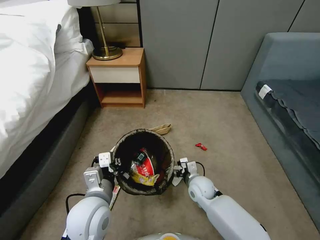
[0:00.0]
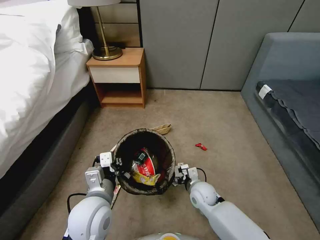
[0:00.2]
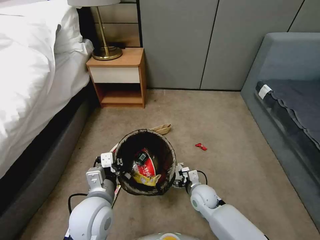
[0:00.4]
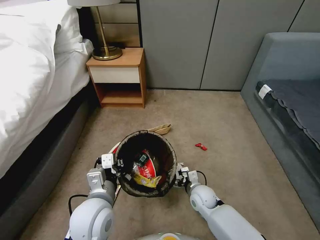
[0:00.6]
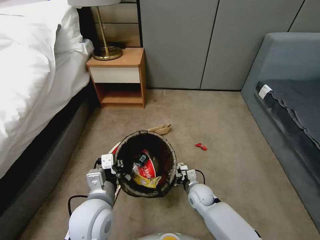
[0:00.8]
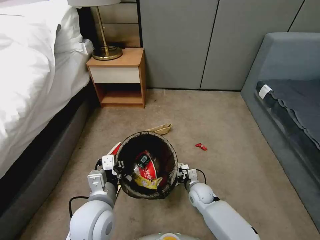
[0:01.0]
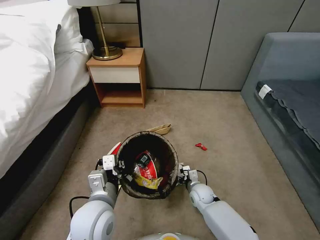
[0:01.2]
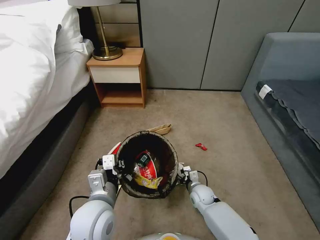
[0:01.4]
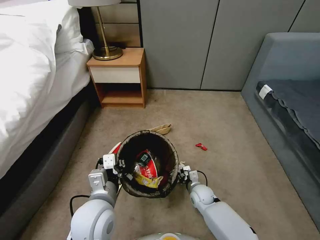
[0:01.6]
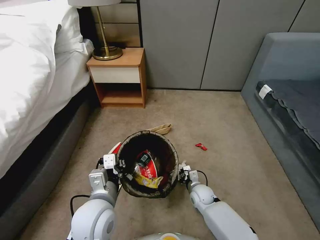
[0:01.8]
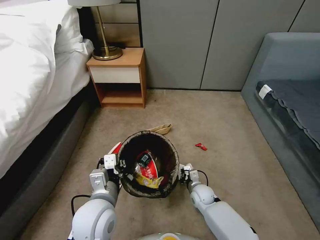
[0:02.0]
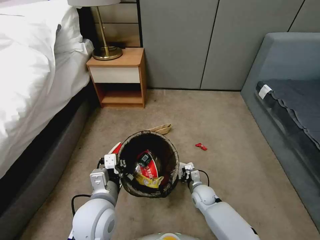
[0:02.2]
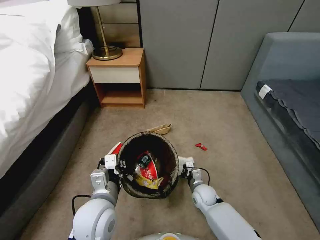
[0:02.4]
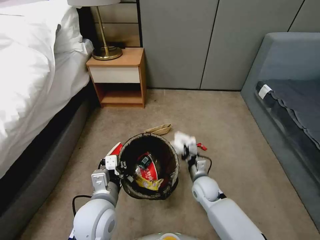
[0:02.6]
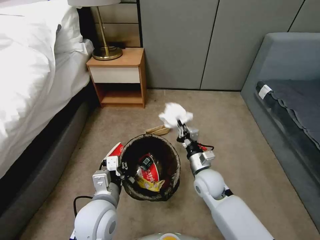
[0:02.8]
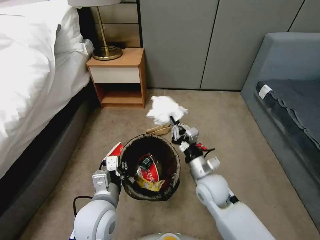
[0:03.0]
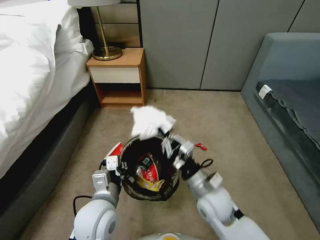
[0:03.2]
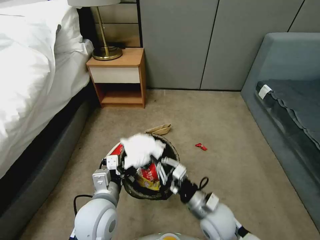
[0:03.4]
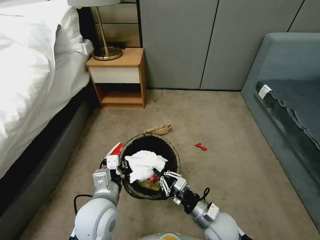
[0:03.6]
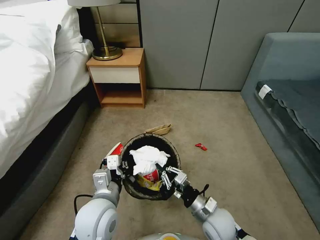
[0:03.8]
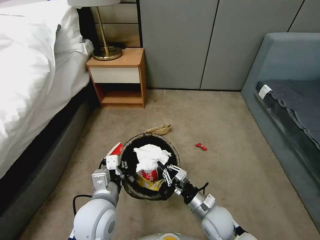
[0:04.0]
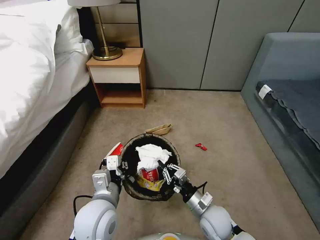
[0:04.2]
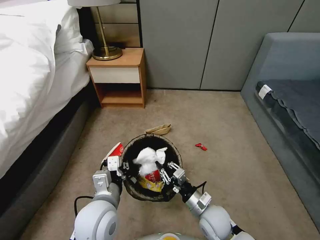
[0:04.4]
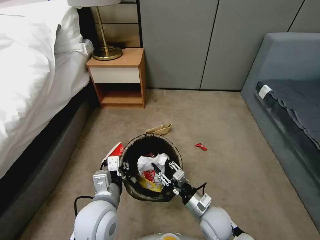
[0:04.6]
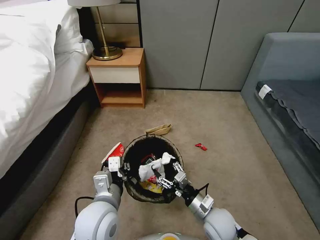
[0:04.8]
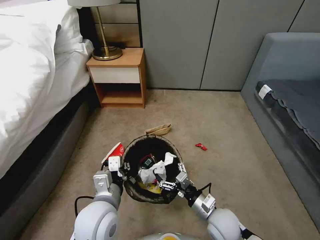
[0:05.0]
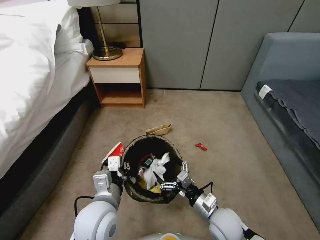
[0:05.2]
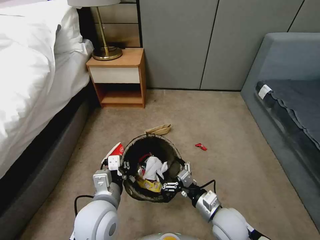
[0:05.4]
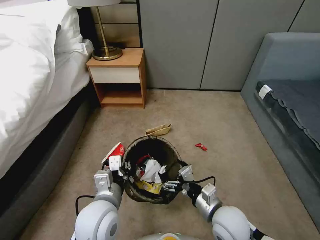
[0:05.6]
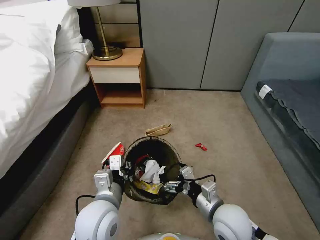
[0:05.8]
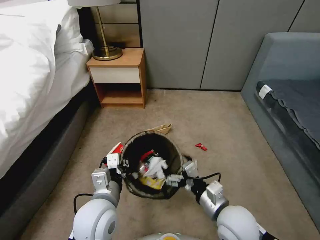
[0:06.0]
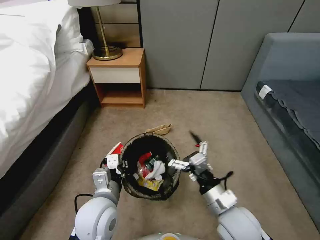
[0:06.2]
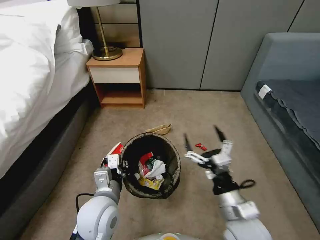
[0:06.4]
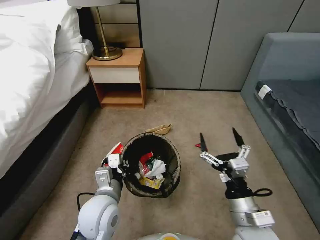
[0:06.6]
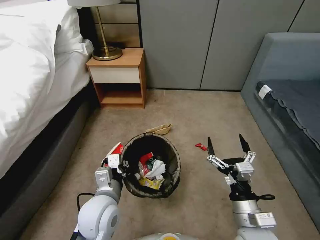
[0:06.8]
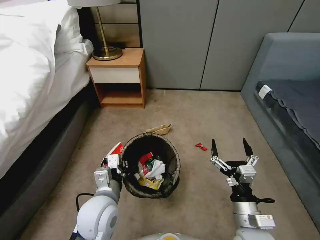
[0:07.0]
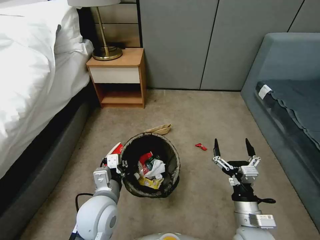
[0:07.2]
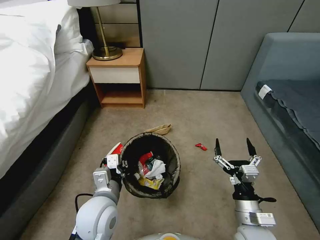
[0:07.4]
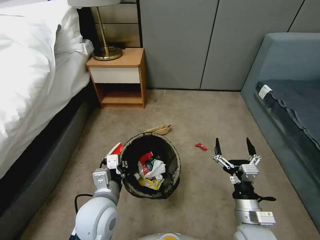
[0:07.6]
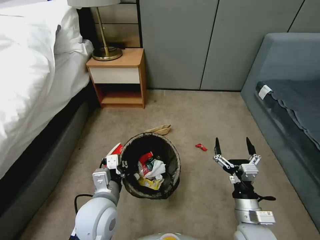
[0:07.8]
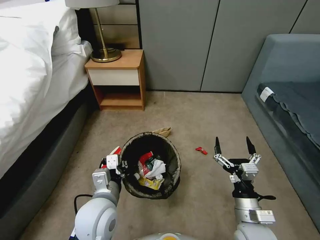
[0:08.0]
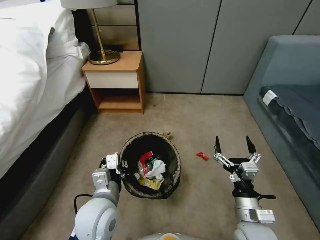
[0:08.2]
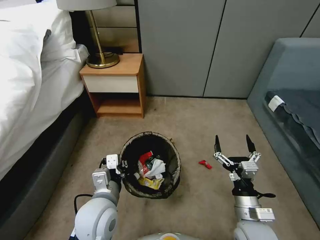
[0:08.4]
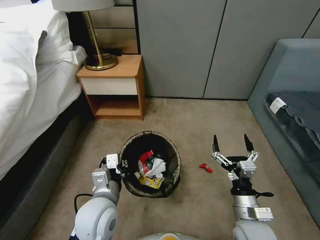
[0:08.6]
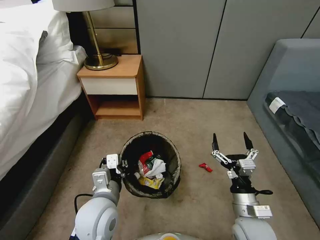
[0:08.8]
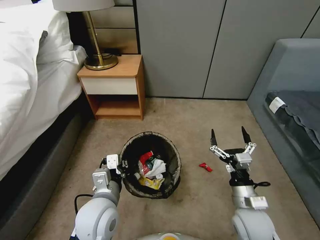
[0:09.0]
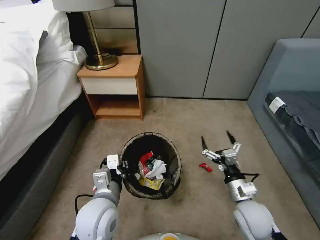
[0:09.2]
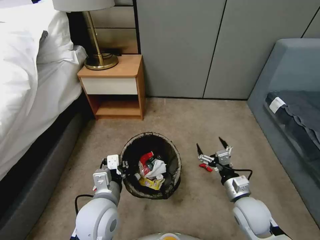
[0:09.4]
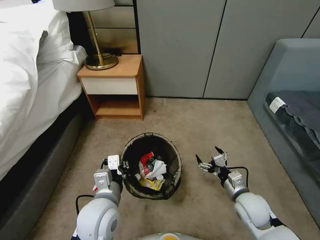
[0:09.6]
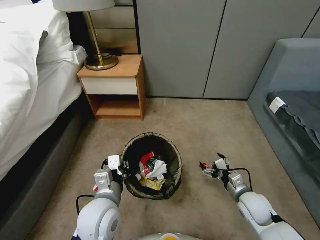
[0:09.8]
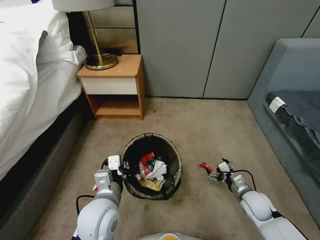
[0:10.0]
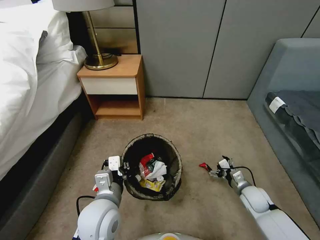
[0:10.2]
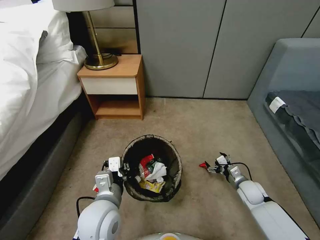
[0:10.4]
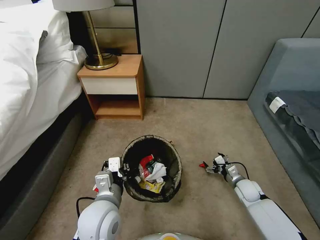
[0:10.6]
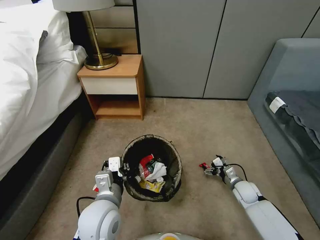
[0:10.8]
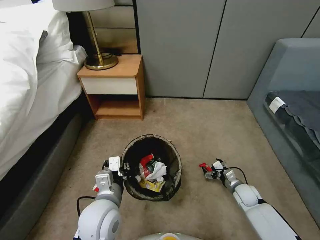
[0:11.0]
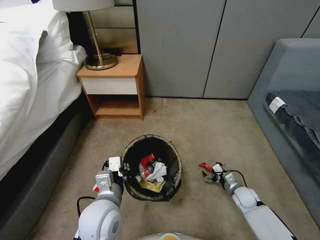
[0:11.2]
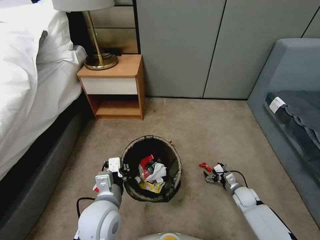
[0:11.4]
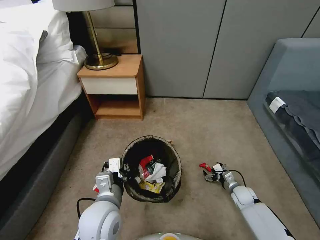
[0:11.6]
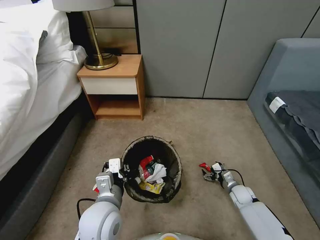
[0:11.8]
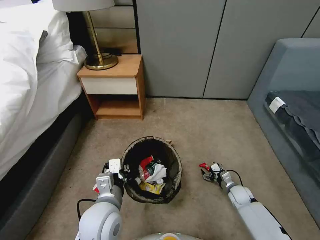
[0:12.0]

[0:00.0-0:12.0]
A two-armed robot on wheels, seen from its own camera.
Task of the whole recording: Pick up the trash bin, then pick up the garbage from the floor and place it into the trash bin.
0:00.0 to 0:01.6: The right gripper moves downward, about 10 cm, and closes.
0:01.6 to 0:03.0: The right gripper moves upward, about 20 cm, and closes its fingers.
0:03.0 to 0:04.4: The right gripper goes some 10 cm downward and backward.
0:04.4 to 0:06.0: The right gripper shifts roughly 15 cm upward, and opens.
0:06.0 to 0:07.6: The right gripper heads to the right, covering about 5 cm.
0:09.0 to 0:10.4: The right gripper moves downward, forward and to the right, some 20 cm.
0:10.4 to 0:12.0: The right gripper heads downward, covering some 10 cm.

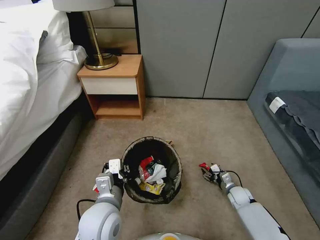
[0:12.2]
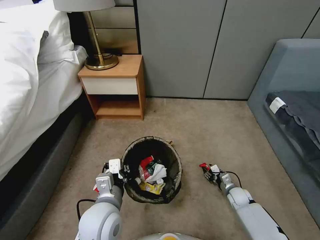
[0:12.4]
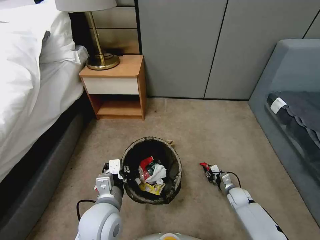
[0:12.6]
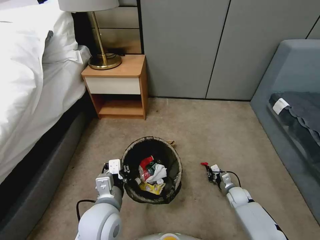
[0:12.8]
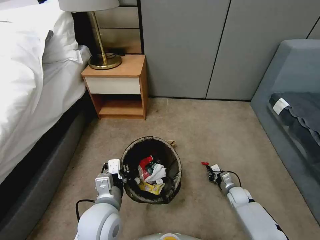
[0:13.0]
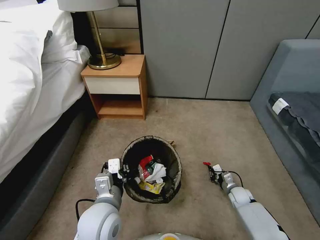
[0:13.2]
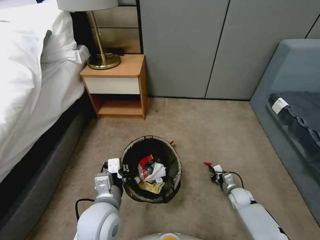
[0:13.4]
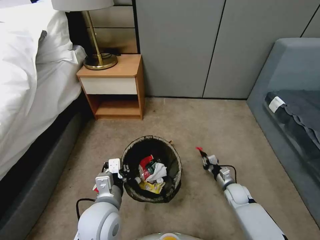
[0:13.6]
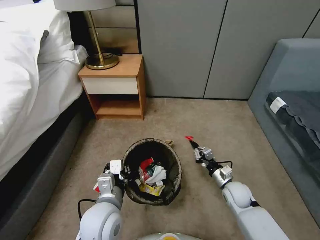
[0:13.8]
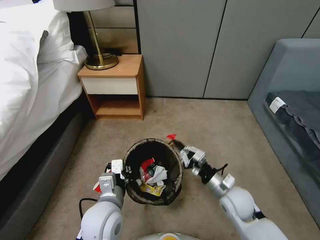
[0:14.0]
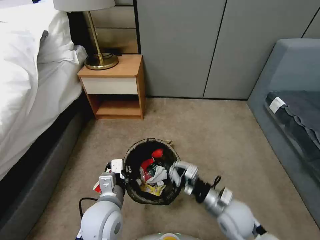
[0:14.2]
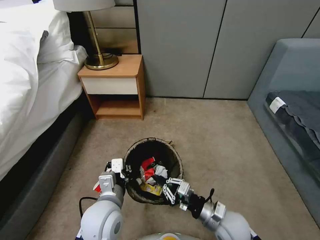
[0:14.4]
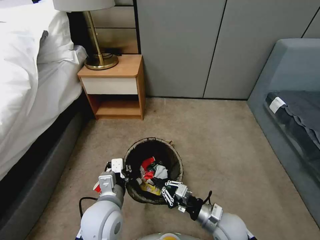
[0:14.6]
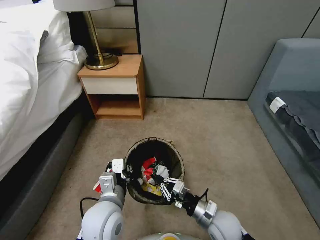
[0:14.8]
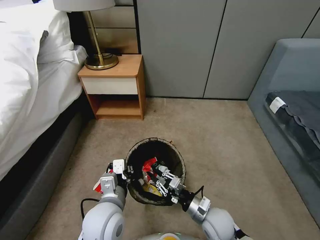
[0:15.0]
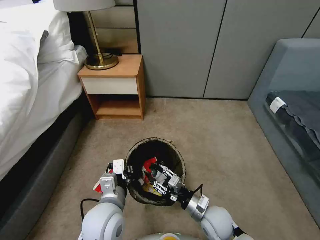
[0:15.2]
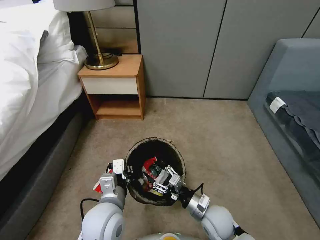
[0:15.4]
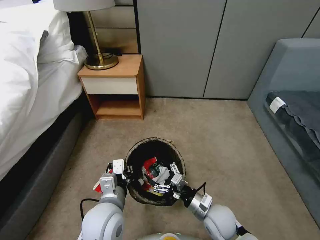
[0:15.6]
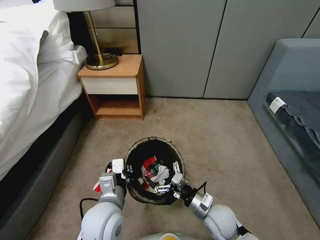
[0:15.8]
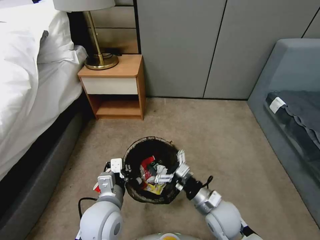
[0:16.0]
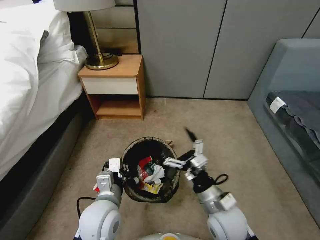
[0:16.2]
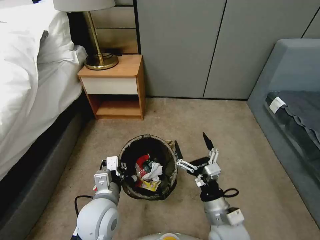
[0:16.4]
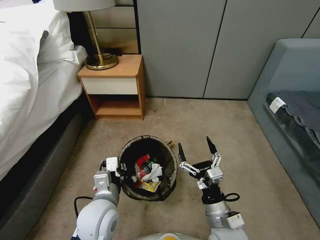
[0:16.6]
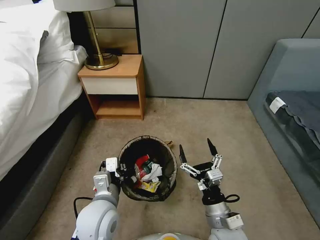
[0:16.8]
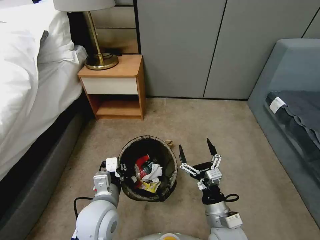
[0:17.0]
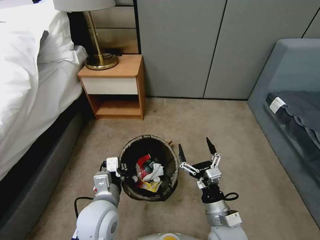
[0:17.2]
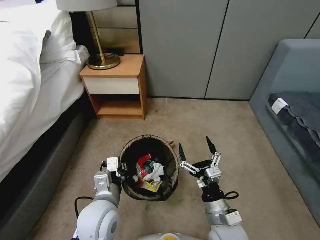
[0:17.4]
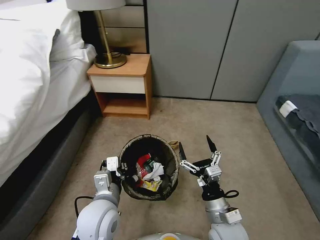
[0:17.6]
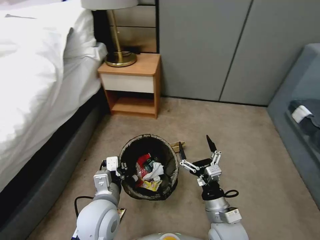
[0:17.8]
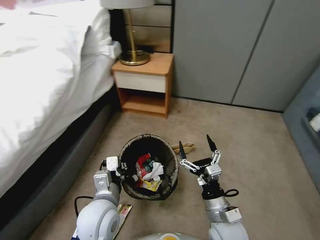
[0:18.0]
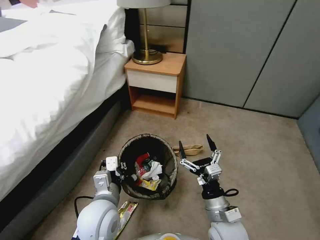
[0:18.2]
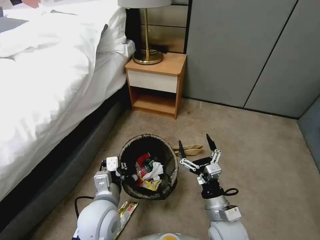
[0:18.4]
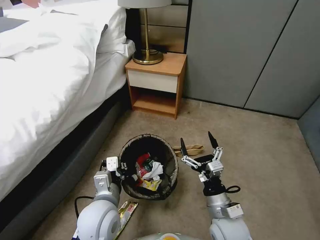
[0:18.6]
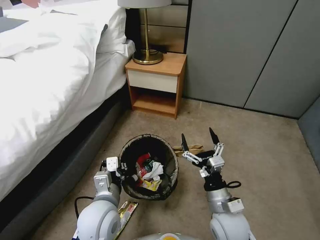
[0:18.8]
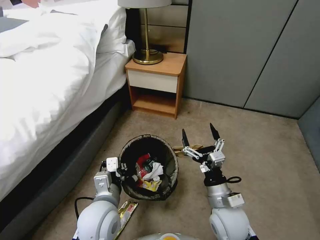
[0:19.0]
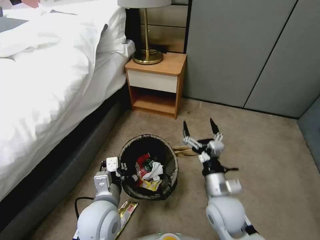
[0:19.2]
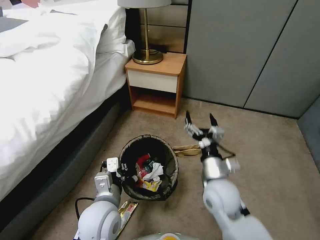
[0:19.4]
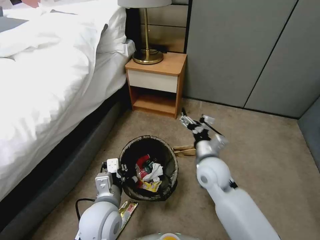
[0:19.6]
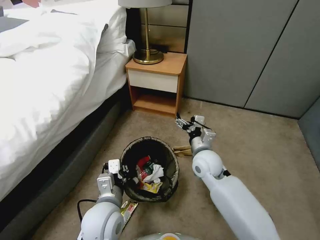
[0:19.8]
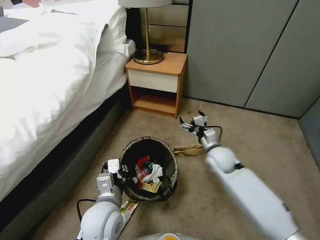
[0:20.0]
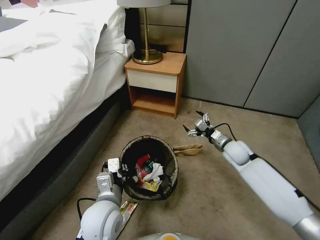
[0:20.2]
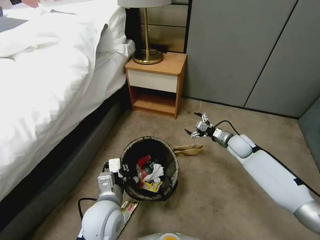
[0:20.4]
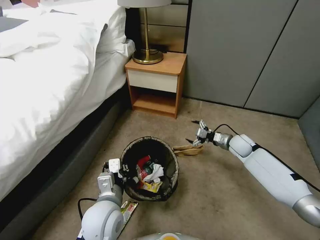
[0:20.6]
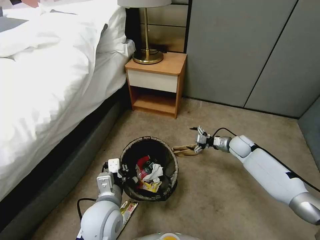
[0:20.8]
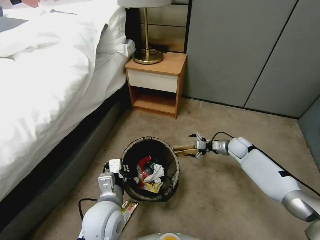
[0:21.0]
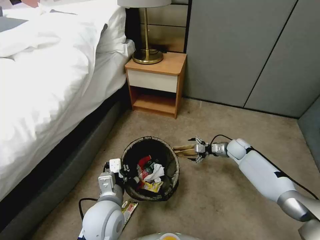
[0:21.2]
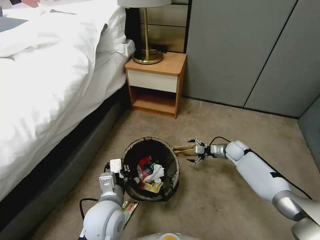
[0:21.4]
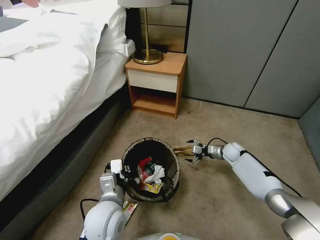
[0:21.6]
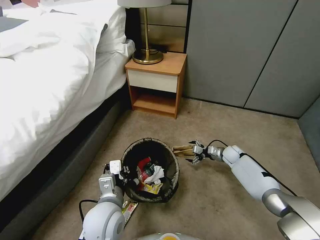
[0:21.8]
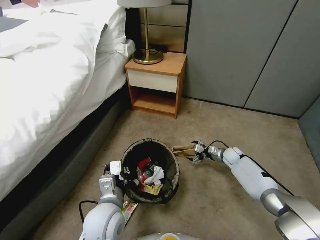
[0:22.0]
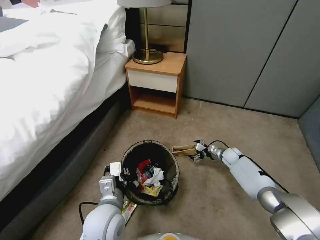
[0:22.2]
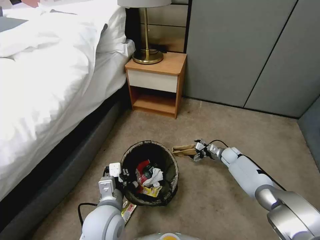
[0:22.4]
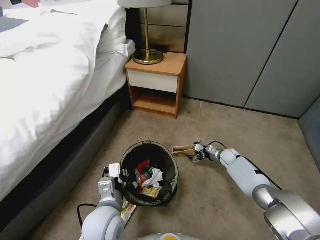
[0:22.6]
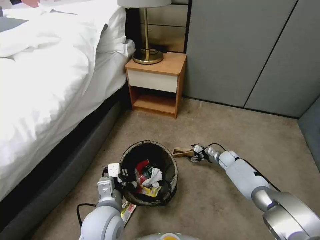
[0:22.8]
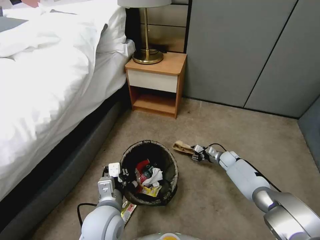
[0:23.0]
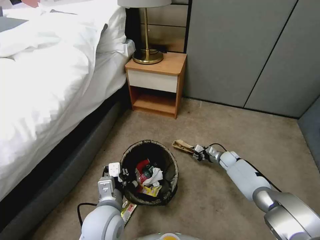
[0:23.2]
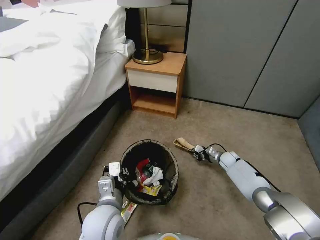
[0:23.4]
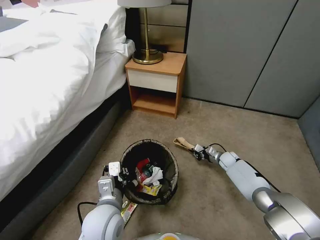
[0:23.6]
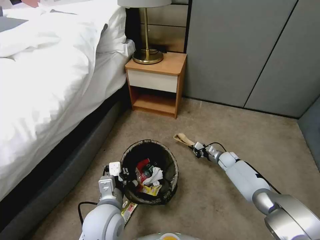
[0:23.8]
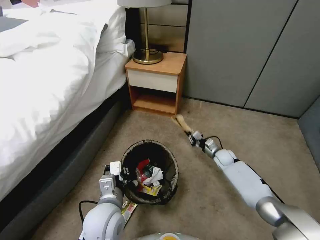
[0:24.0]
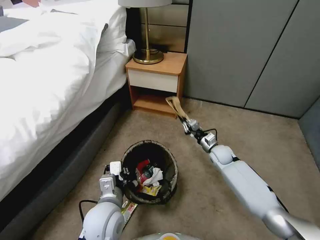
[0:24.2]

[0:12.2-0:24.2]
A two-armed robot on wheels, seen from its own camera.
Task of the whole recording: Pick up the trash bin, then pick up the garbage from the floor and place it into the trash bin.
0:12.2 to 0:13.8: The right gripper goes some 15 cm upward and to the left, and closes its fingers.
0:13.8 to 0:15.2: The right gripper travels to the left and backward by some 15 cm, and opens its fingers.
0:15.2 to 0:16.6: The right gripper shifts roughly 10 cm upward and backward, and opens.
0:18.2 to 0:19.8: The right gripper is displaced forward by about 20 cm.
0:19.8 to 0:21.2: The right gripper moves to the right, forward and downward, approximately 25 cm.
0:21.2 to 0:22.6: The right gripper shifts some 10 cm downward.
0:22.6 to 0:24.2: The right gripper is displaced upward and to the left by roughly 15 cm, and closes its fingers.
